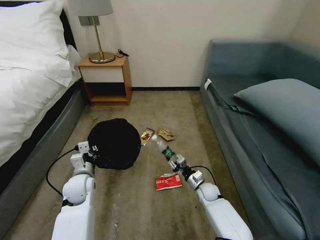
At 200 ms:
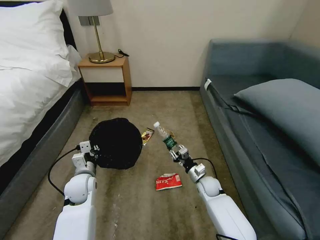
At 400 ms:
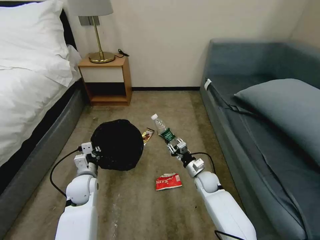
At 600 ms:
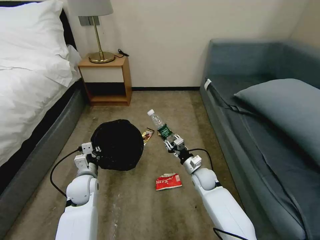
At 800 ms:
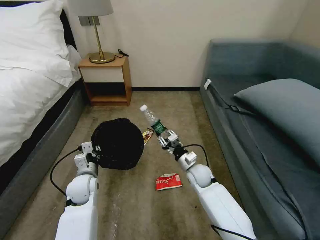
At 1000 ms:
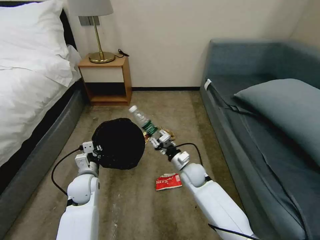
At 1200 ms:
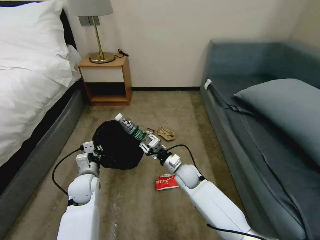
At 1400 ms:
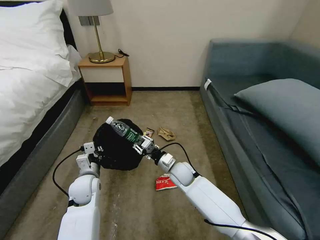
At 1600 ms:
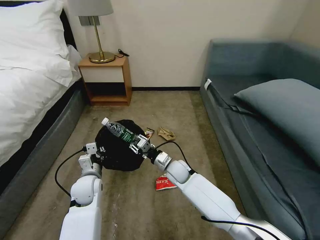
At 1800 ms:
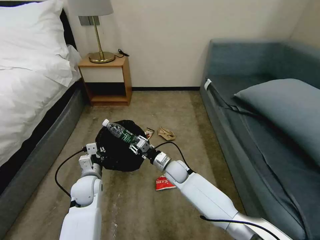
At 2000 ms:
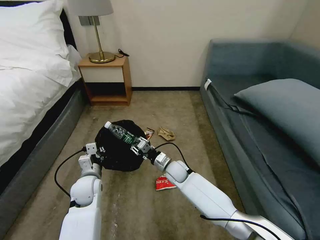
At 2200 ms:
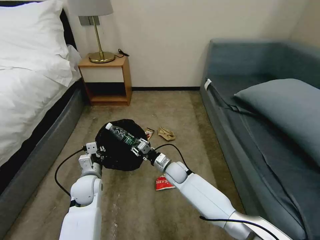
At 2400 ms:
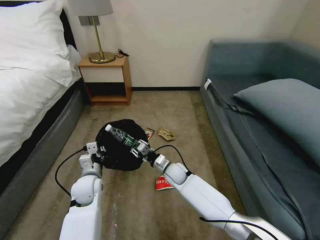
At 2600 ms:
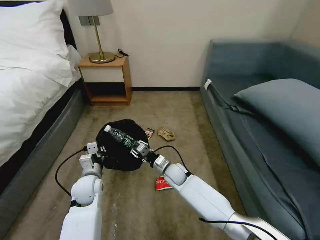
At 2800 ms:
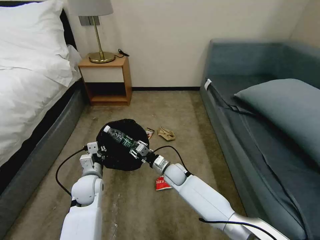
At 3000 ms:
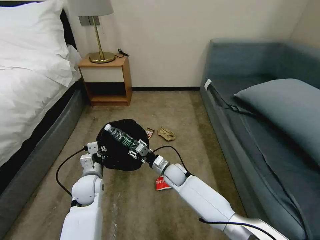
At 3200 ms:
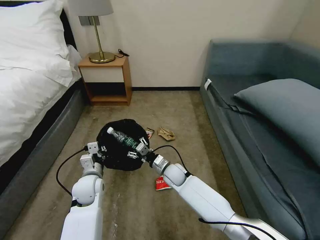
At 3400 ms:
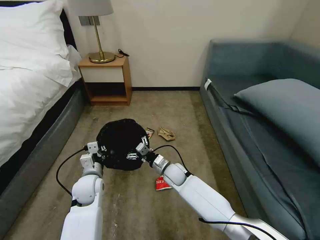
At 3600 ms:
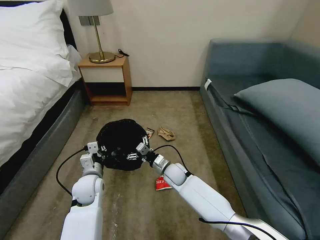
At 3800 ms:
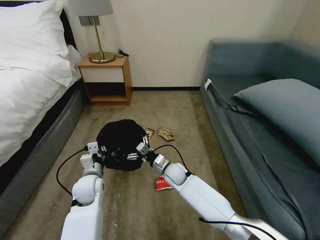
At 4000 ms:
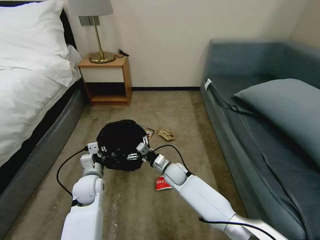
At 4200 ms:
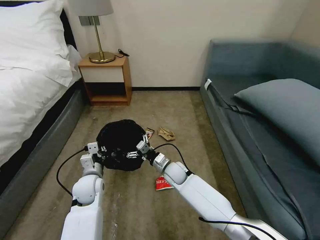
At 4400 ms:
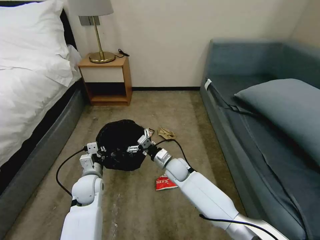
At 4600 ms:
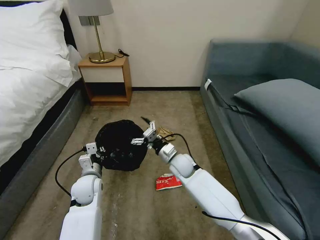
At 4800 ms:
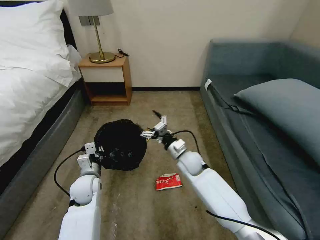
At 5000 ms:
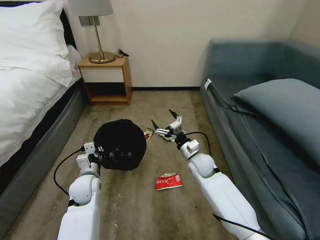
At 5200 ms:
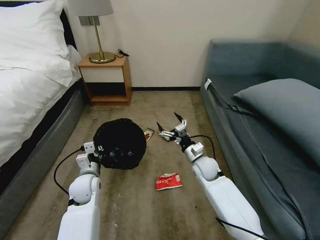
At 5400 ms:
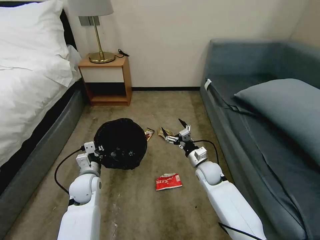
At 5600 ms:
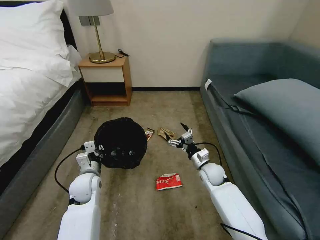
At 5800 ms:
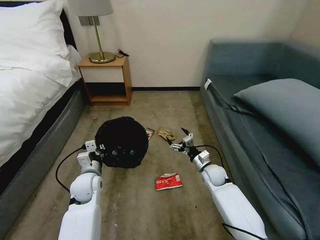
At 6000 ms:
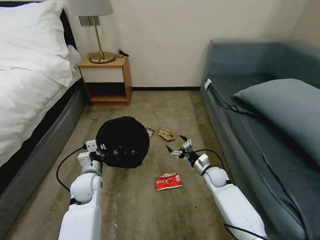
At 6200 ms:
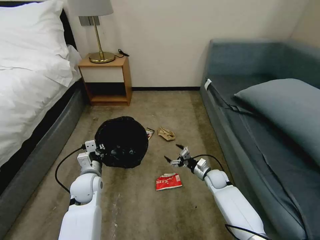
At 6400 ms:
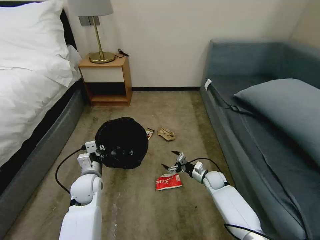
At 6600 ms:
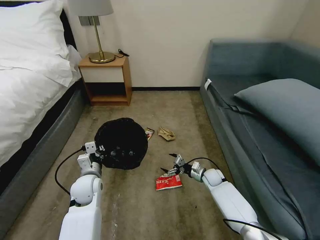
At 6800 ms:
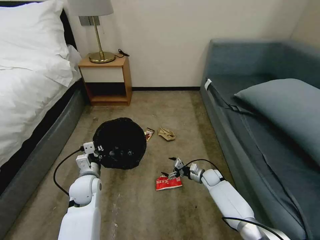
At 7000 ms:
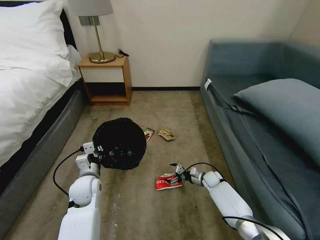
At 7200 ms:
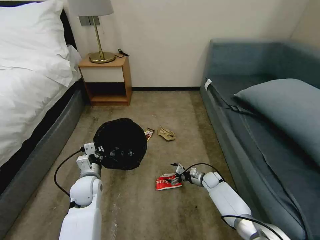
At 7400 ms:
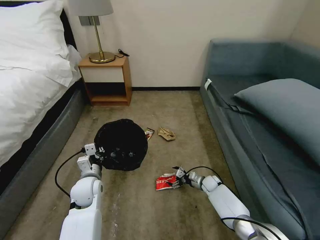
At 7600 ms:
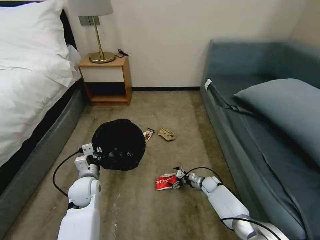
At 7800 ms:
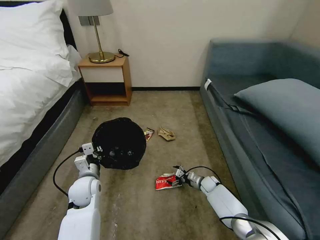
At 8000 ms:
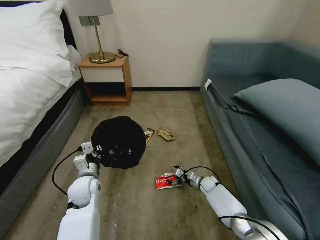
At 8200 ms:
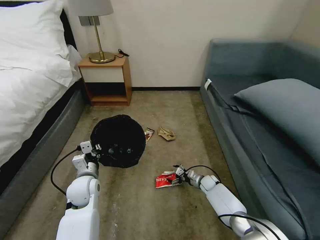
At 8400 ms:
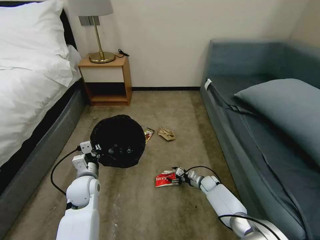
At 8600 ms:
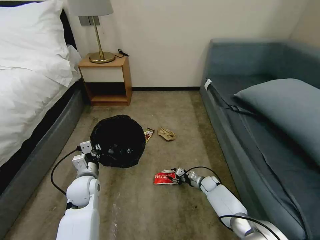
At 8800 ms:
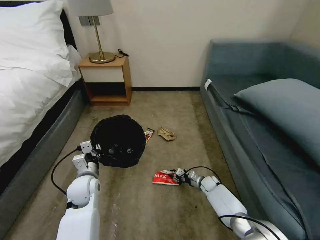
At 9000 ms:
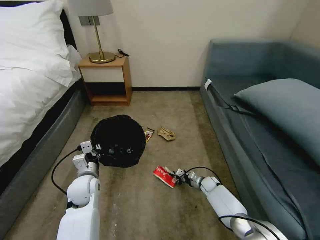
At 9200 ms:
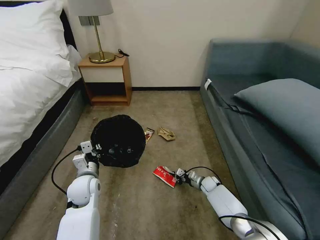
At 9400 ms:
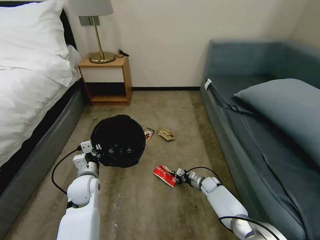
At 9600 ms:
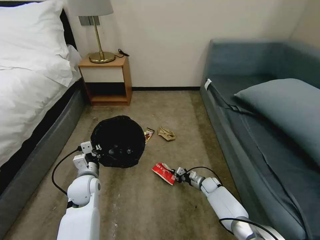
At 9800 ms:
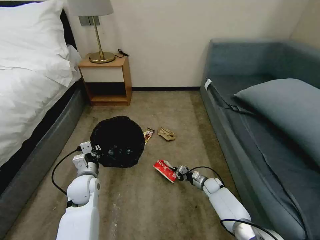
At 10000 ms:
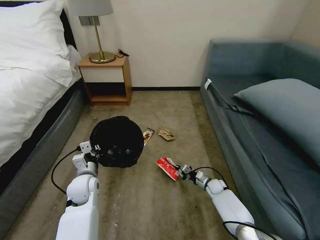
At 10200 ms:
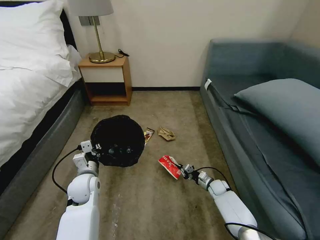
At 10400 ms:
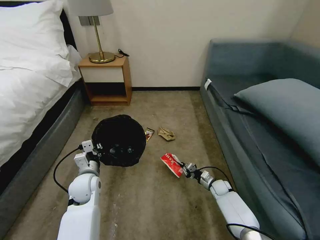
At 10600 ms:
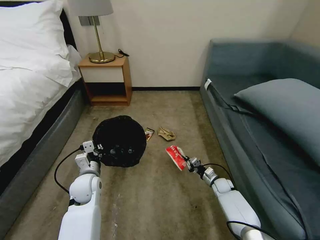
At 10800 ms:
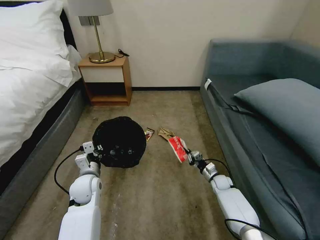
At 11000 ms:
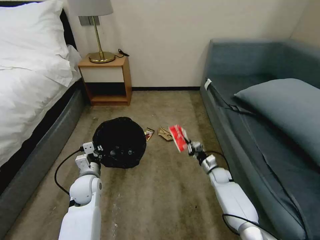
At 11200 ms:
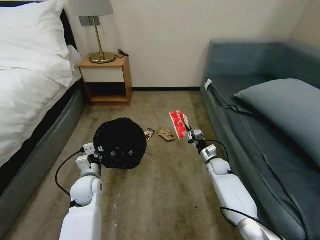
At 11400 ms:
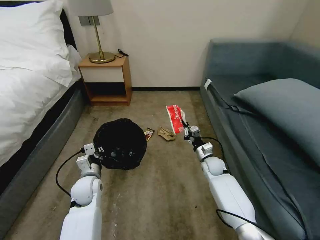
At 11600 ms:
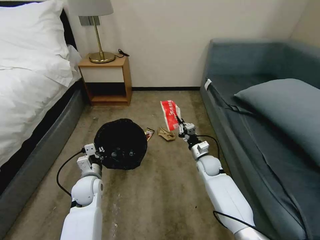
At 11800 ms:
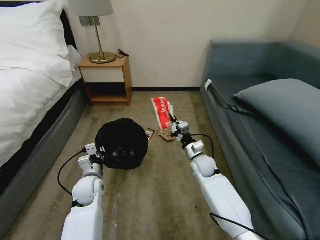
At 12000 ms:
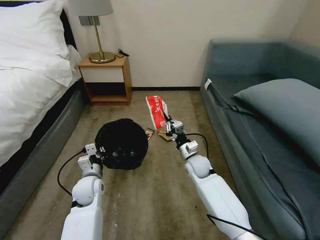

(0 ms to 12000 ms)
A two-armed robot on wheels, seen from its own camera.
Task of the whole recording: Pick up the trash bin, then pick up the garbage on the floor and place it into the trash bin.
0 ms - 1600 ms: The right gripper travels to the left and upward by about 20 cm.
1600 ms - 3000 ms: The grippers stay close to where they were, moving slightly.
3000 ms - 4400 ms: The right gripper opens up.
4400 ms - 6000 ms: The right gripper shifts approximately 20 cm to the right.
6000 ms - 7600 ms: The right gripper heads downward, covering about 10 cm.
7600 ms - 9000 ms: The right gripper closes its fingers.
9000 ms - 10400 ms: The right gripper moves about 5 cm.
10400 ms - 12000 ms: The right gripper moves upward and to the left, some 25 cm.

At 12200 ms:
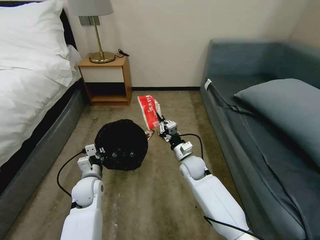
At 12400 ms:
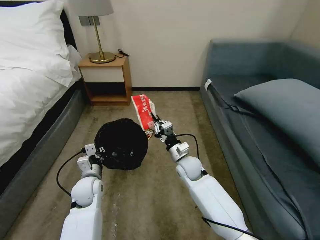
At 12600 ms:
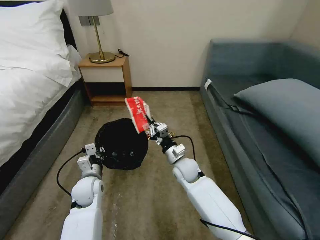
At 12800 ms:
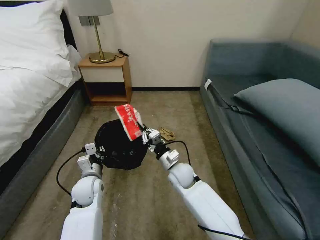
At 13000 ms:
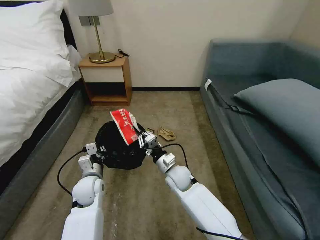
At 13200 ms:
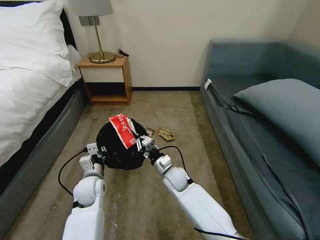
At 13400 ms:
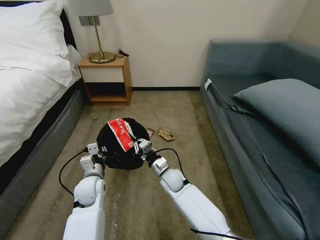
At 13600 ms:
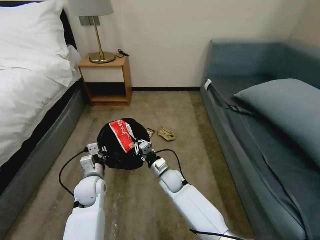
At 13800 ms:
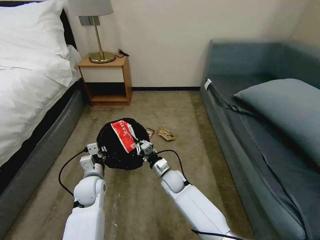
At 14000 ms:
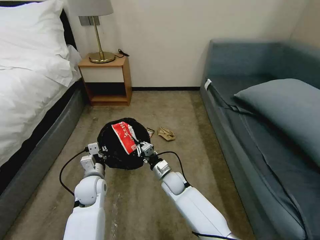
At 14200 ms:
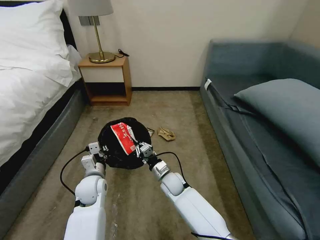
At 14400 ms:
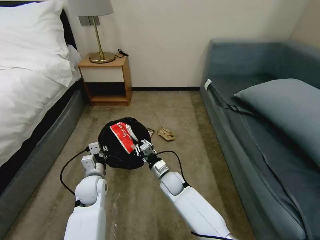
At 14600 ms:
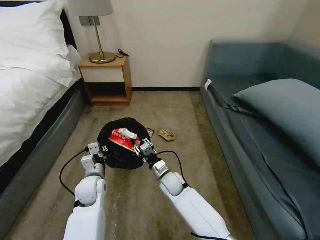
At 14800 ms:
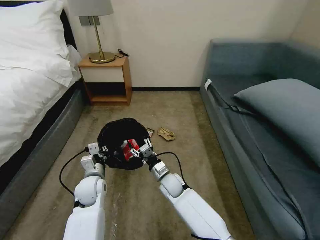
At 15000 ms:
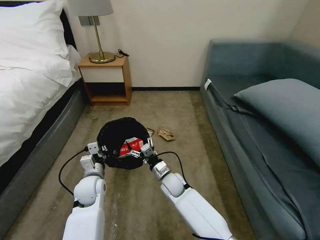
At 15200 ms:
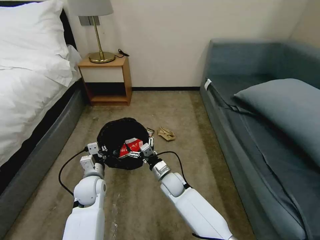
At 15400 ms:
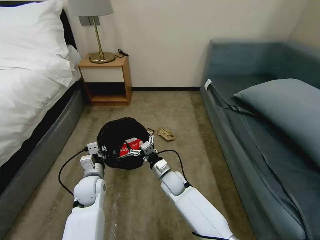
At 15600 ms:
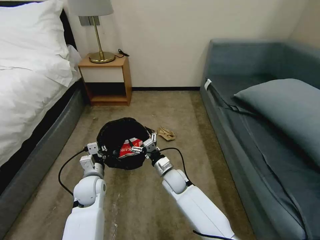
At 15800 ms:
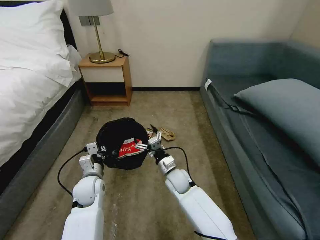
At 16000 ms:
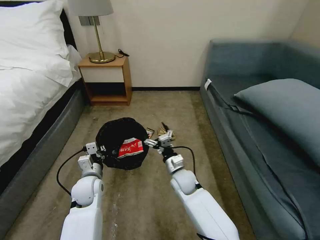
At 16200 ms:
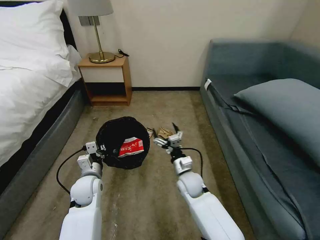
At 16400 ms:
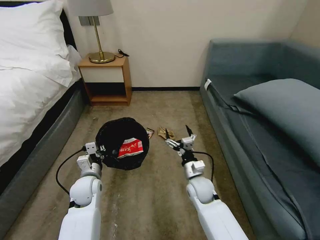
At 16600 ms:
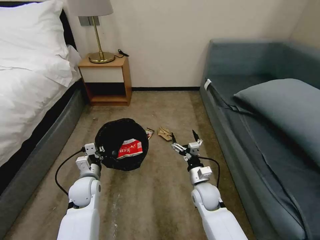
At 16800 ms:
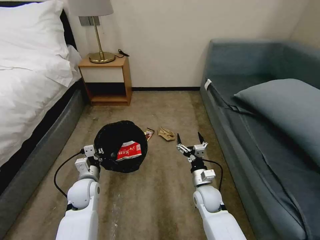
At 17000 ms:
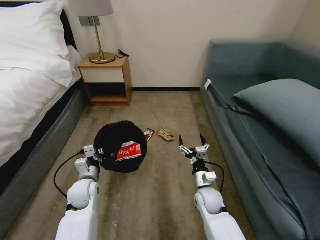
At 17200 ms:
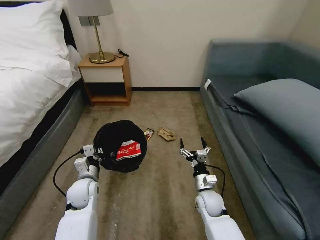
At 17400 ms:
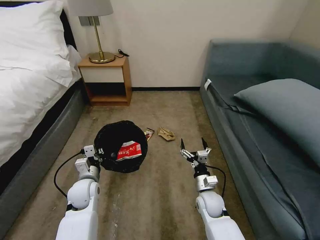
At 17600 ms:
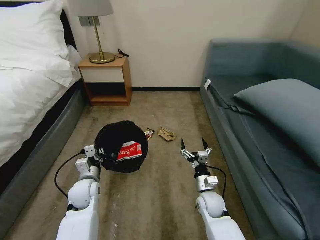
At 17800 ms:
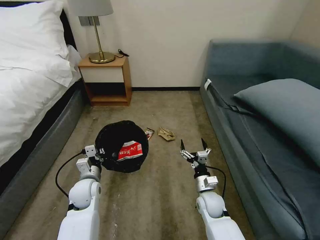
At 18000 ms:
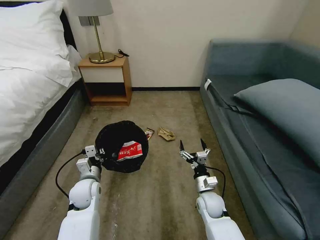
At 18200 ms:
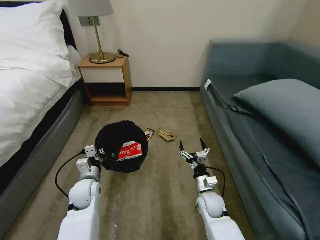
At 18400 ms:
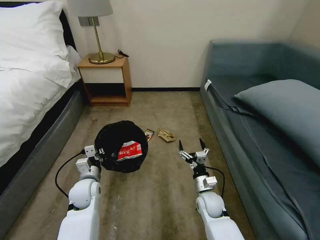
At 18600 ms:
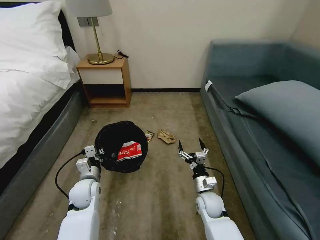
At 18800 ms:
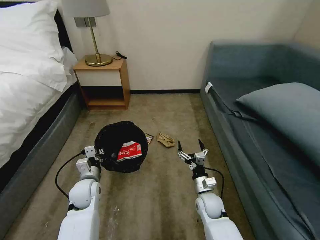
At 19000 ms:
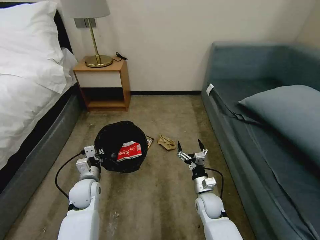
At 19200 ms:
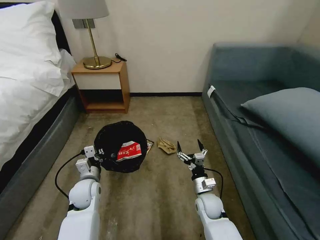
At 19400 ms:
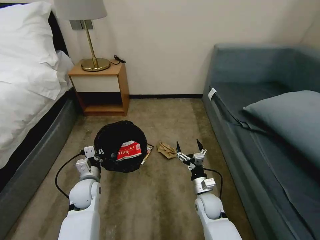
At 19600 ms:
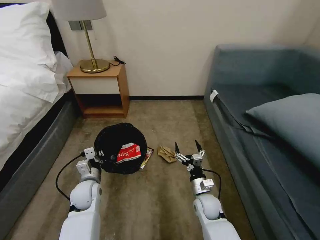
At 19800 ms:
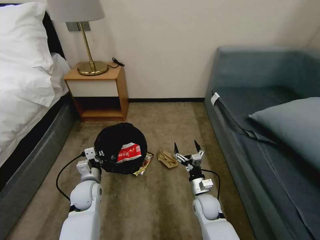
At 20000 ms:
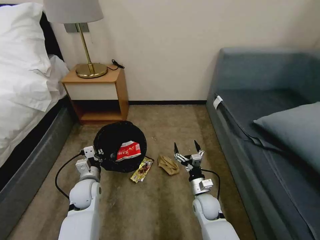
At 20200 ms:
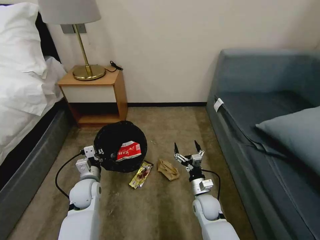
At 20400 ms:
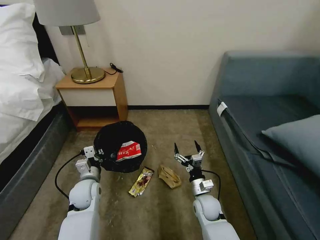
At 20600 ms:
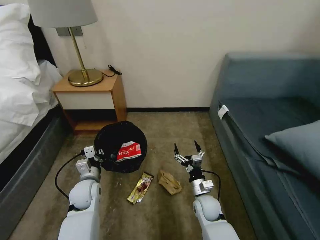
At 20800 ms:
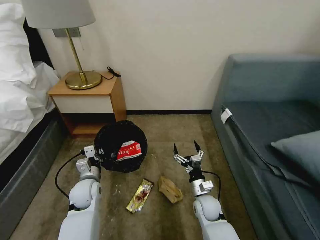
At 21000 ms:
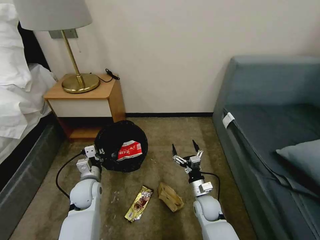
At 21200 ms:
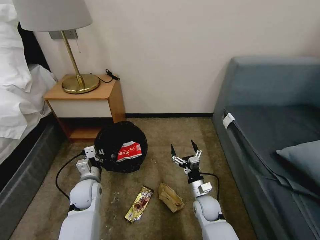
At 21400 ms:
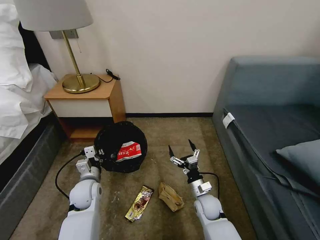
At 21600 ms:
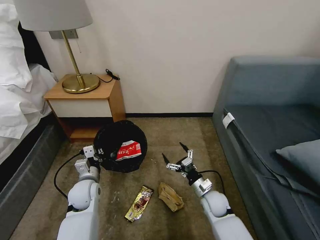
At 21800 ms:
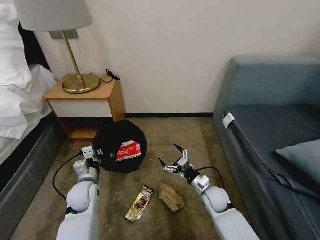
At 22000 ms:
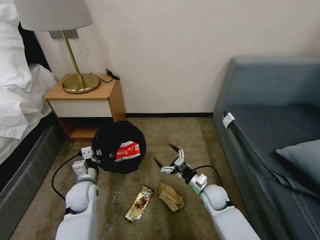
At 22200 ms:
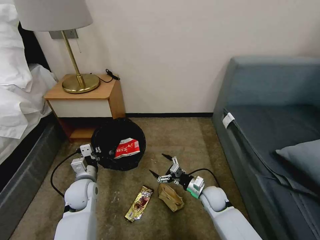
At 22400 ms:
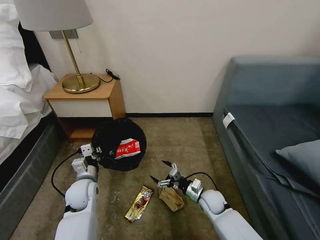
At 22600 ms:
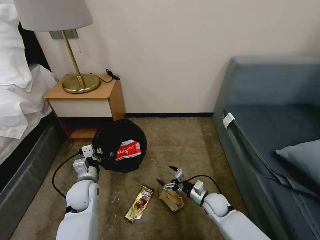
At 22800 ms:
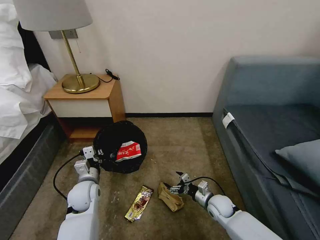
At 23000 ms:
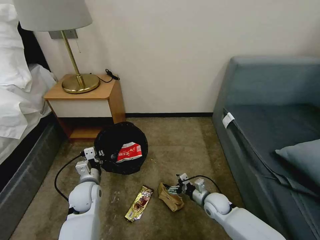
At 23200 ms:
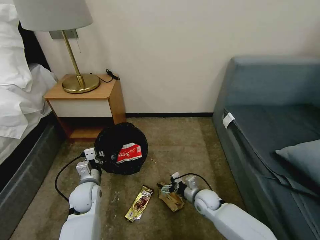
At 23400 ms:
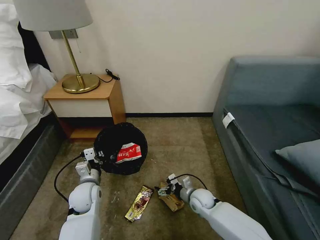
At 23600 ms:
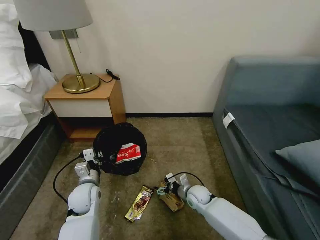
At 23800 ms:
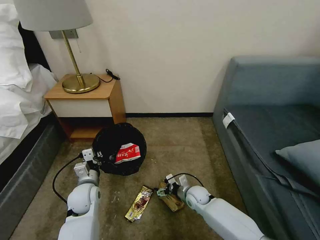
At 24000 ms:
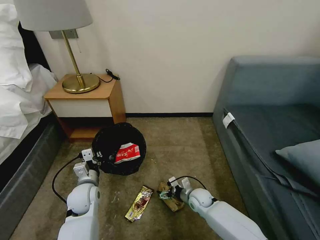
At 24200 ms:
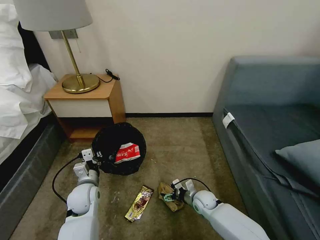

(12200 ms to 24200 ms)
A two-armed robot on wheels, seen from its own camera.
Task of the whole recording: Pick up the trash bin, then pick up the garbage on the floor and place it into the trash bin.
12200 ms - 13800 ms: The right gripper moves to the left and downward, about 10 cm.
13800 ms - 15200 ms: The right gripper opens its fingers.
15200 ms - 16600 ms: The right gripper heads to the right and backward, covering approximately 15 cm.
16600 ms - 18200 ms: The grippers stay close to where they were, moving slightly.
21200 ms - 22600 ms: The right gripper ends up approximately 5 cm from where it was.
